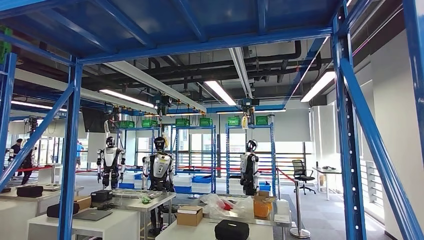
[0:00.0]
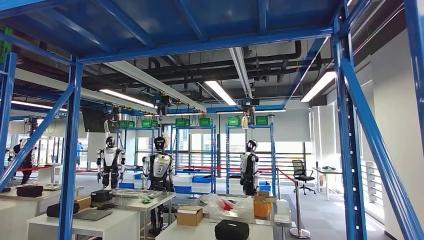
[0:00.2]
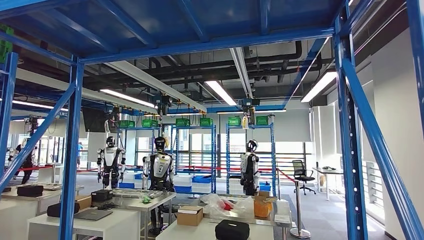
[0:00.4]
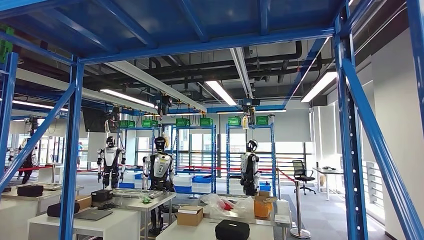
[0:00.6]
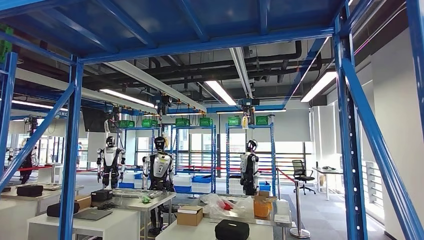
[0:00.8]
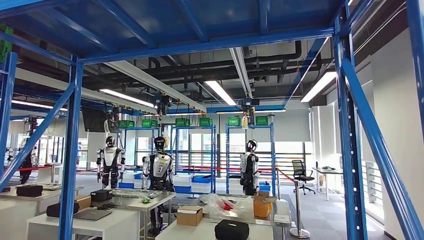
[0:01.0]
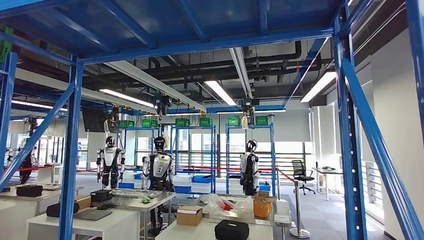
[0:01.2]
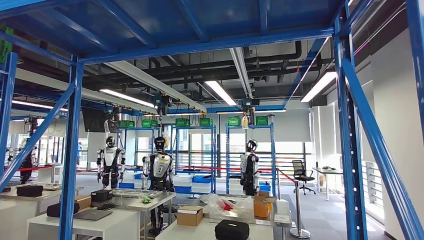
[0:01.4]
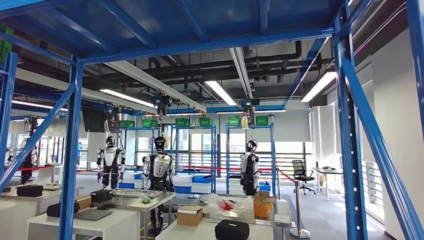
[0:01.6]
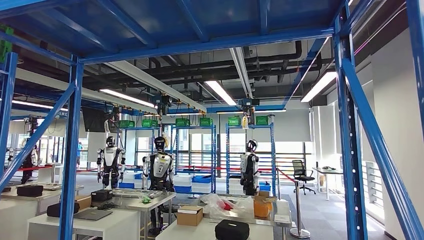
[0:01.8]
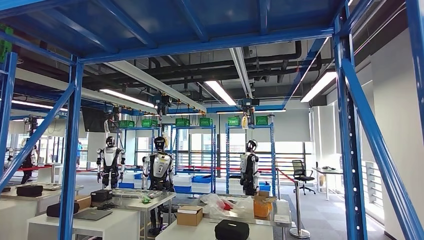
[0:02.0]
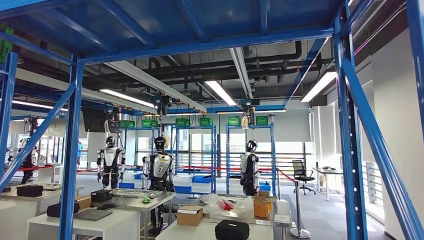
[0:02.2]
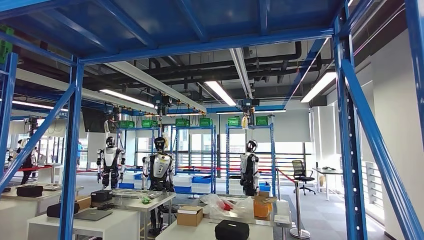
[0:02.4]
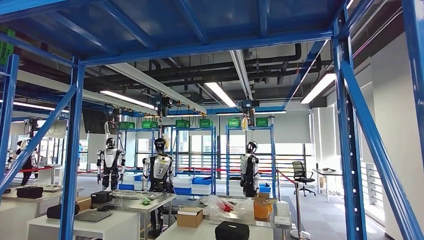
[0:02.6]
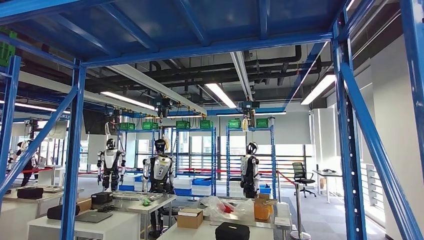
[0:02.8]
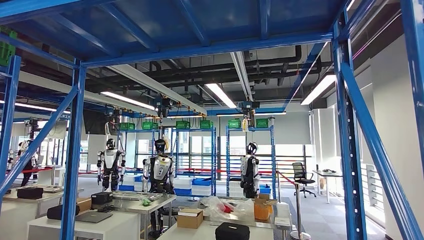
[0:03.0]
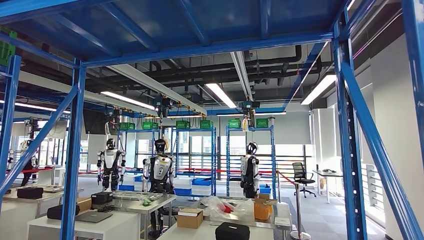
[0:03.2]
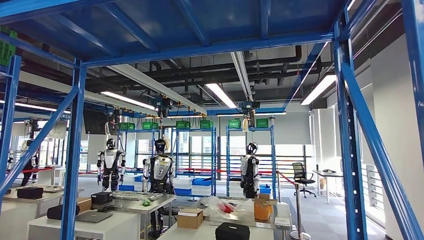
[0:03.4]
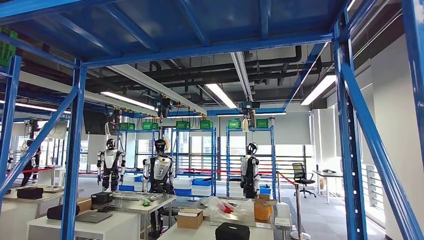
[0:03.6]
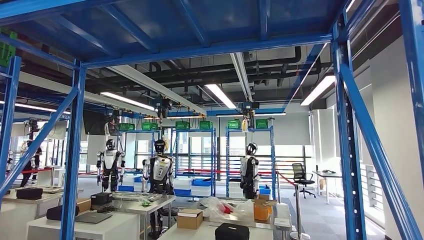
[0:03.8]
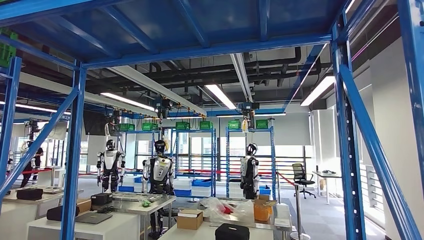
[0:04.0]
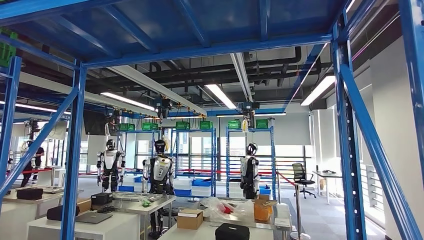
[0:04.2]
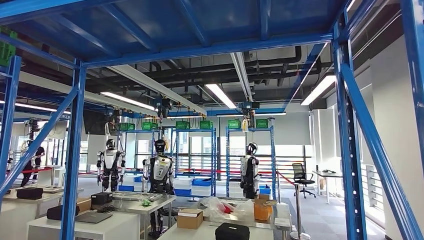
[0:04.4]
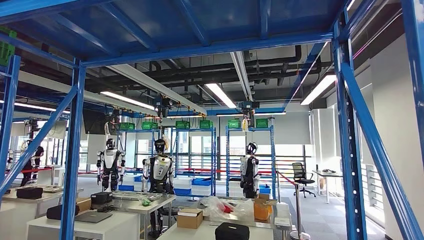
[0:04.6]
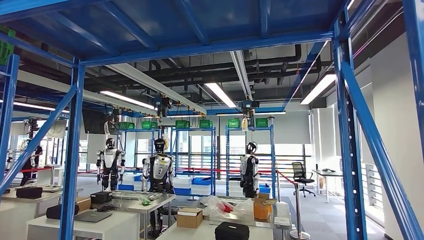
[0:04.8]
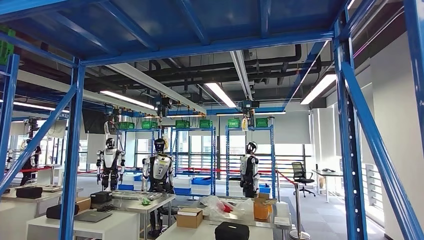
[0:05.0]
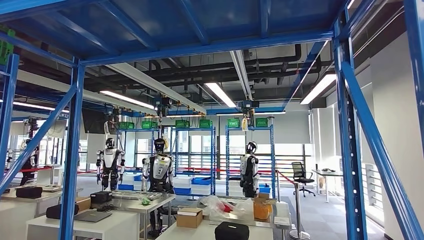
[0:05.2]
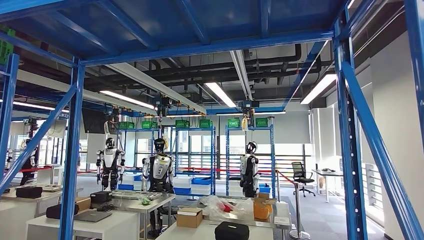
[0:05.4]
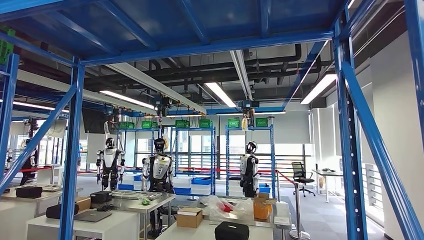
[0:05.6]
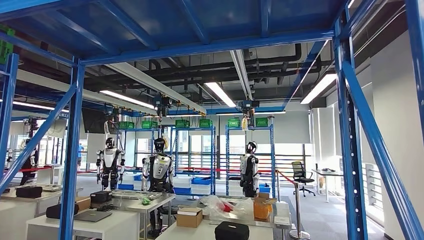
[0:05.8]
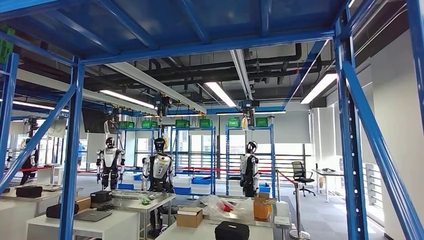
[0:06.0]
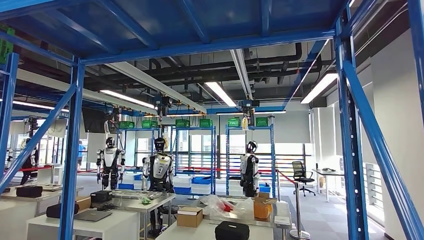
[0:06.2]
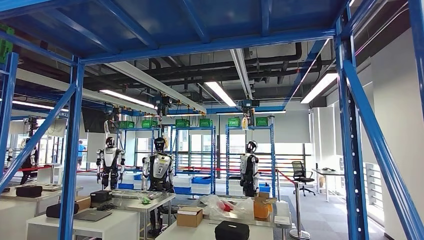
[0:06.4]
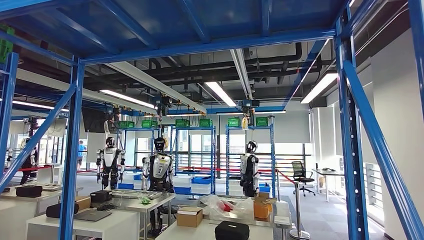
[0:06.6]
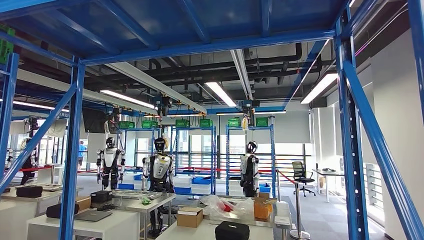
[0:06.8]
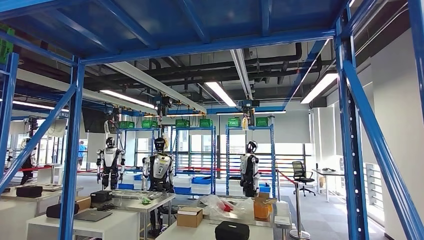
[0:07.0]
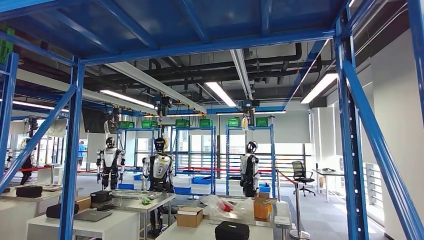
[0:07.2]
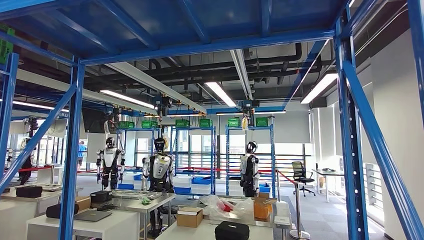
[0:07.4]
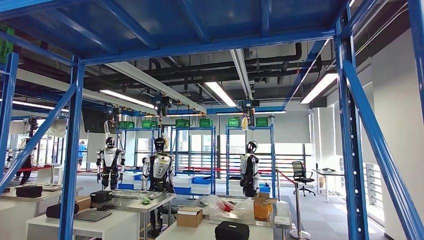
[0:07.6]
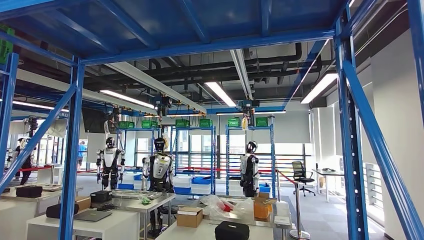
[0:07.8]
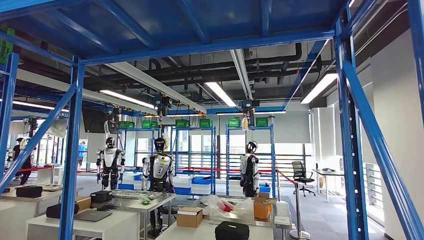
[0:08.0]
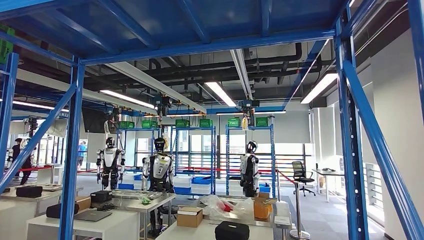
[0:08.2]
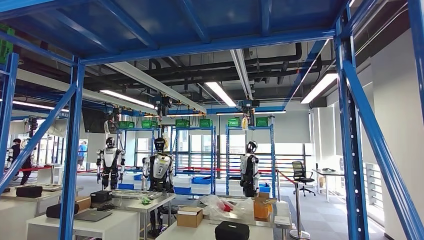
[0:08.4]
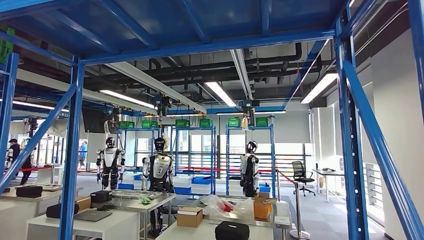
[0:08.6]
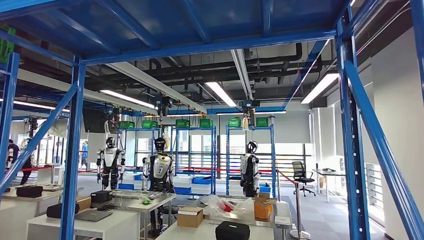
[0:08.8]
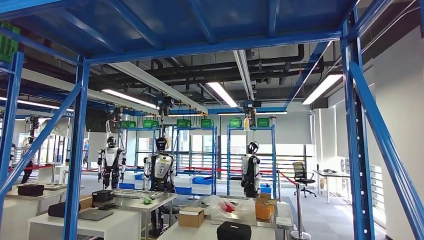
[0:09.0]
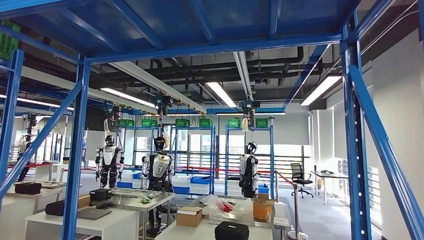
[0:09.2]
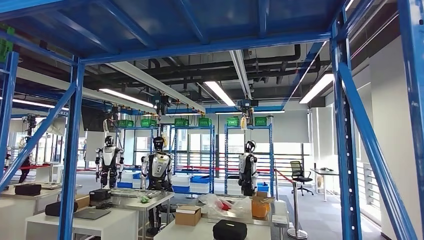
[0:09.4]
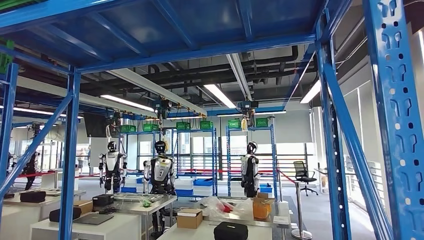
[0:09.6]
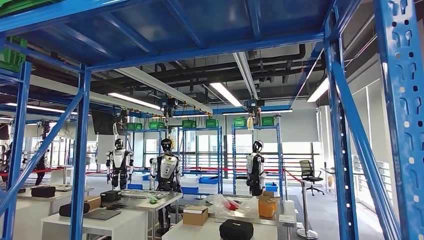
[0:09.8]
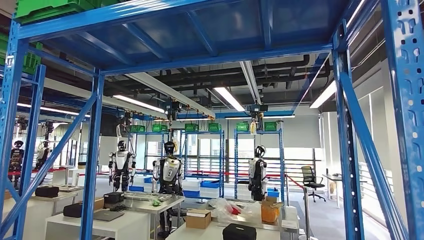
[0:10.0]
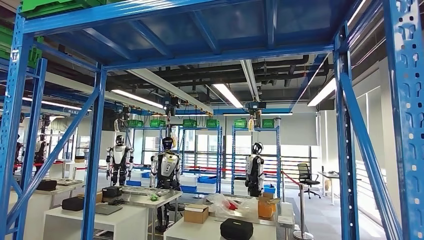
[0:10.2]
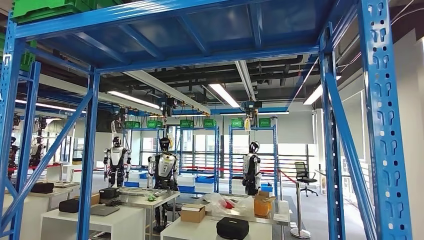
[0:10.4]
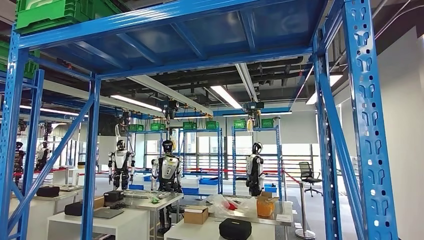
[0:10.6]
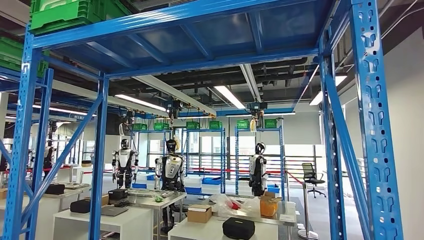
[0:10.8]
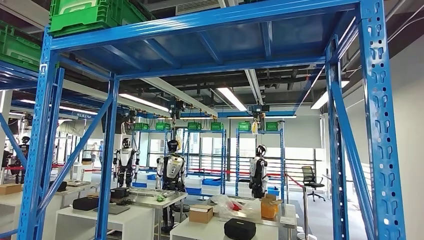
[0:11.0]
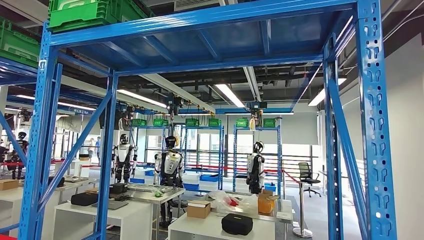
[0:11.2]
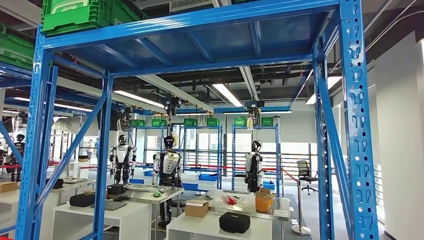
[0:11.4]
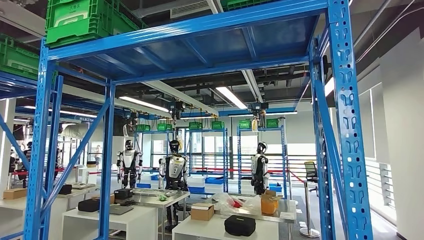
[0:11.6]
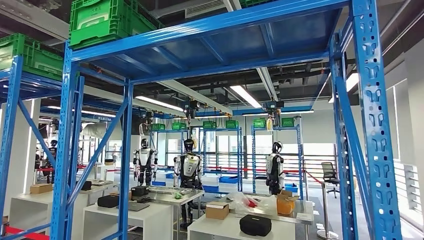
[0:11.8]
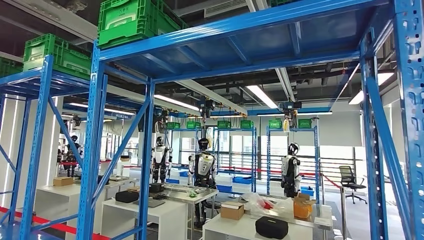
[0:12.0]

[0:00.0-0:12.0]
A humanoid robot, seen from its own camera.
Step, 0:00.0 to 0:06.0: Pick up the large material from the shelf.
0:00.0 to 0:01.6: The right hand heads to the left, covering about 5 cm.
0:03.0 to 0:04.4: The hands make only small movements.
0:06.0 to 0:07.6: The right hand heads backward, covering approximately 10 cm.

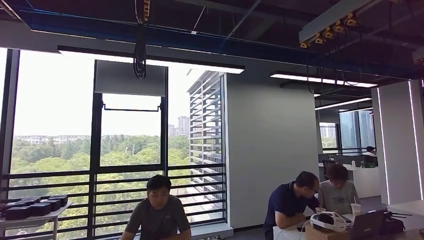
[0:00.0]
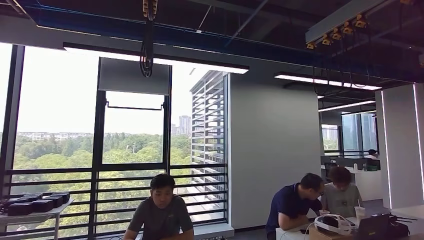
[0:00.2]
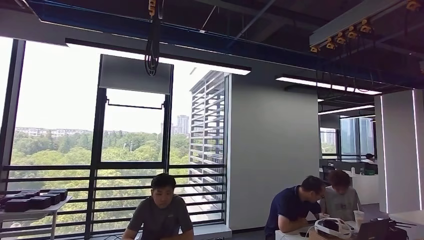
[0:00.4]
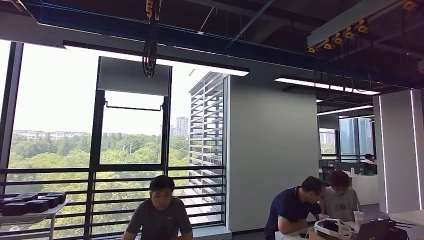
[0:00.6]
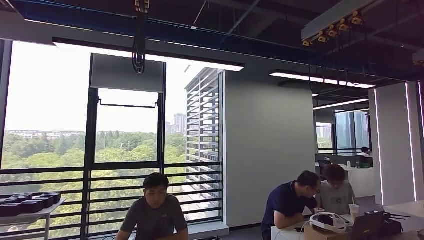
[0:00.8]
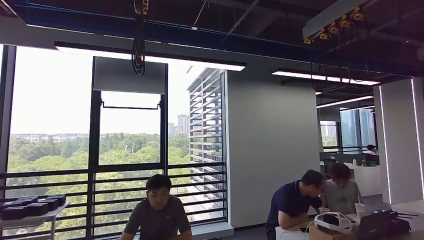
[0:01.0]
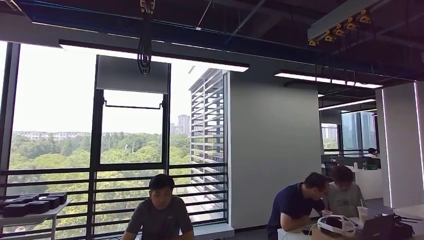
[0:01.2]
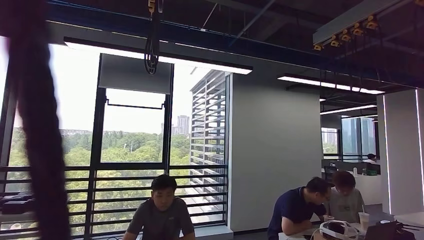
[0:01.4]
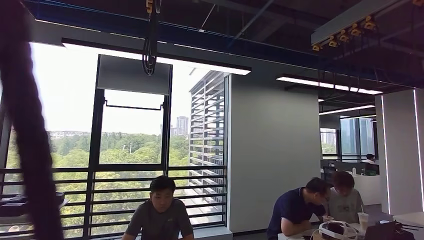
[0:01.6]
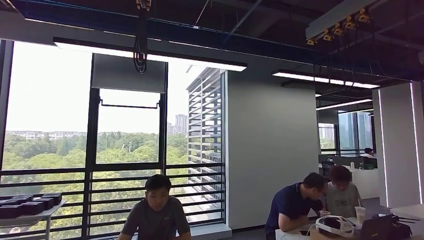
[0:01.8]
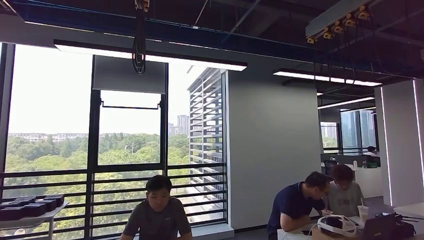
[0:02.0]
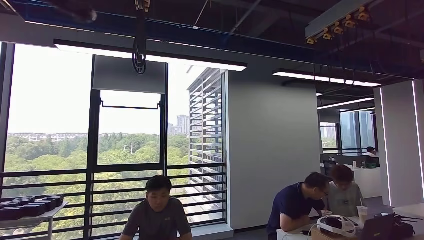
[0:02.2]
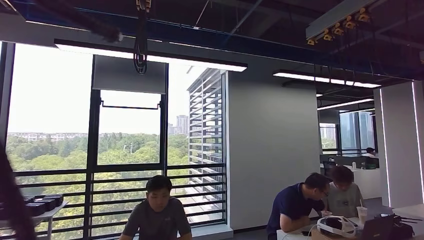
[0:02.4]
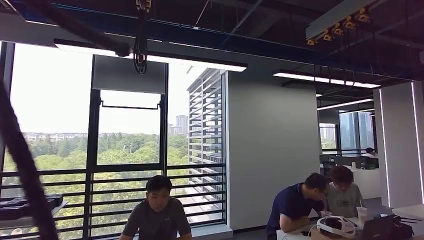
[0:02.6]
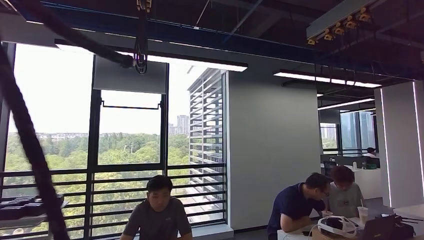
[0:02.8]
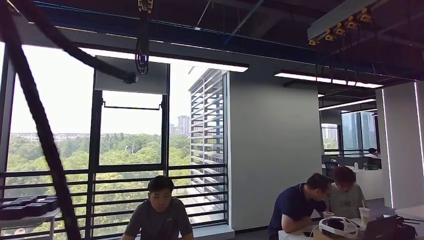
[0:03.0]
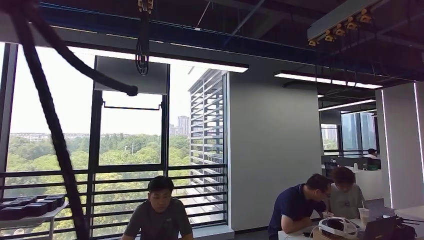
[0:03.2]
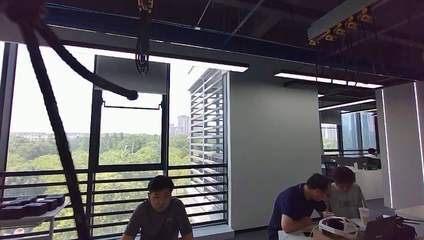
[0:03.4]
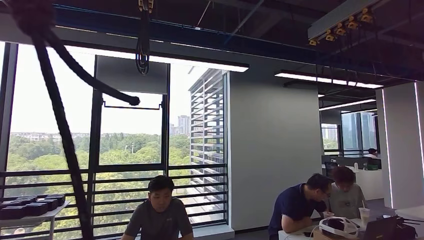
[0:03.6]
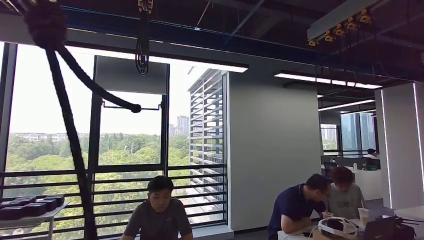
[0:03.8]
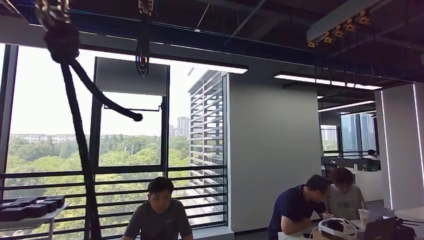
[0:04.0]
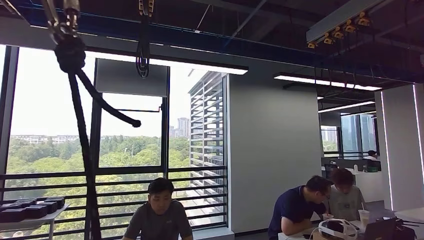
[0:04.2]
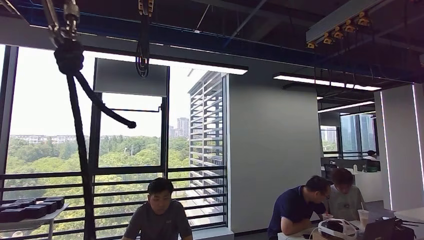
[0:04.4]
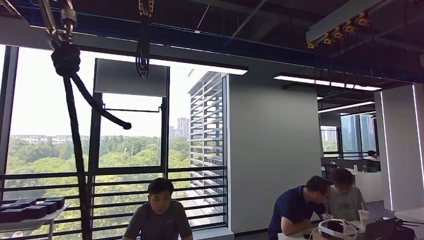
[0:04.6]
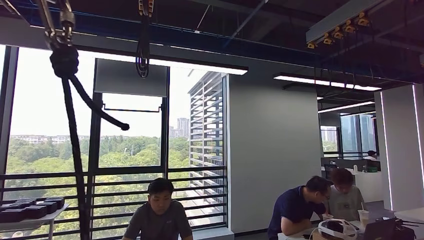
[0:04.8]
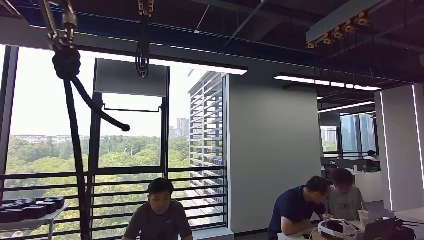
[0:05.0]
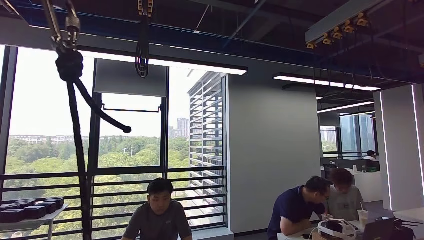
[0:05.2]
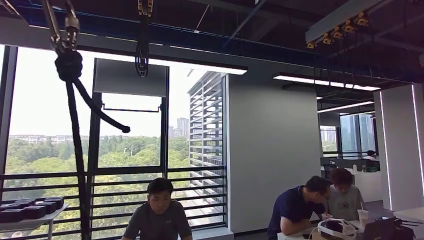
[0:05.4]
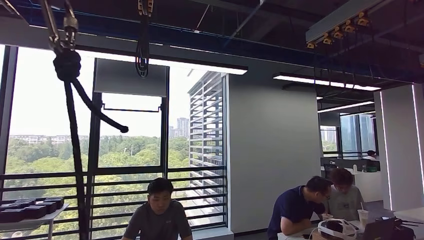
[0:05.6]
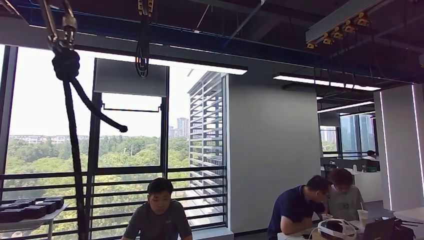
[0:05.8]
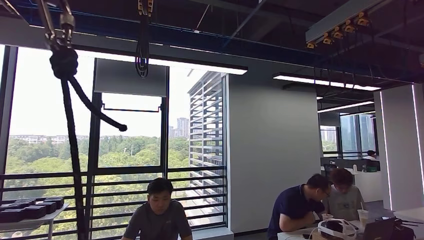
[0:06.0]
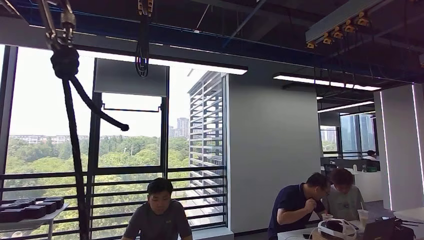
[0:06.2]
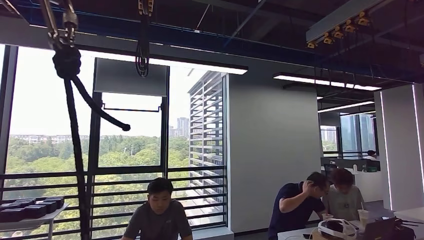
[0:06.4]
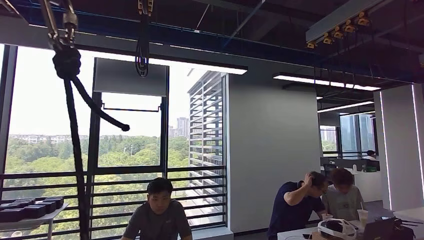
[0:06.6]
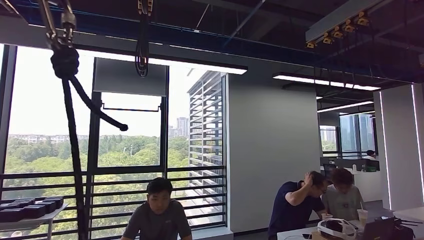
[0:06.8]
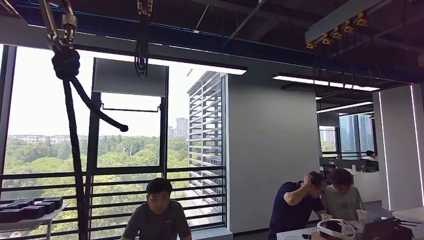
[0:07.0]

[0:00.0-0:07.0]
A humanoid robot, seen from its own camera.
Step, 0:00.8 to 0:05.4: Insert the large material into the corresponding slot on the workbench.
0:04.2 to 0:05.6: Neither hand changes place.
0:05.6 to 0:07.0: The right hand moves upward and backward, approximately 25 cm.
